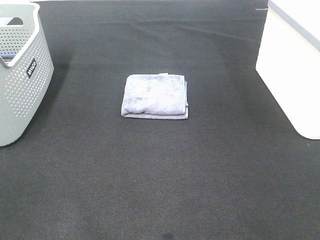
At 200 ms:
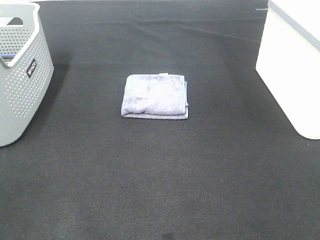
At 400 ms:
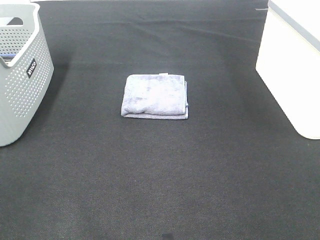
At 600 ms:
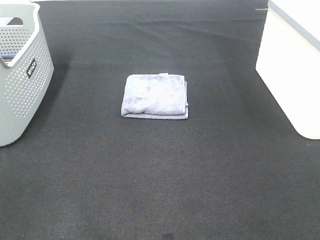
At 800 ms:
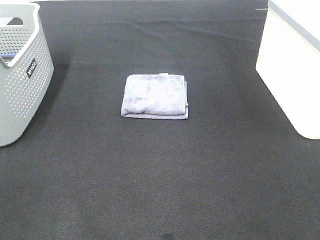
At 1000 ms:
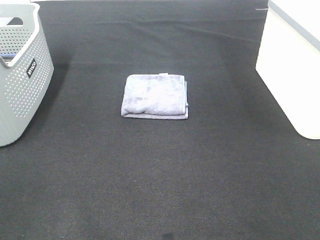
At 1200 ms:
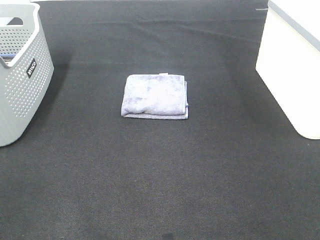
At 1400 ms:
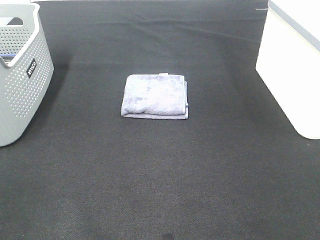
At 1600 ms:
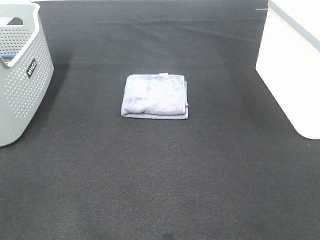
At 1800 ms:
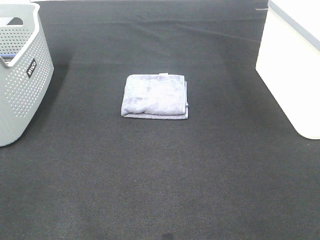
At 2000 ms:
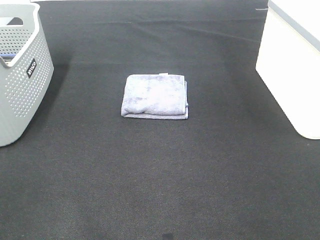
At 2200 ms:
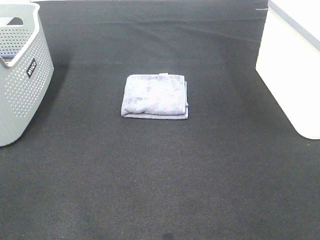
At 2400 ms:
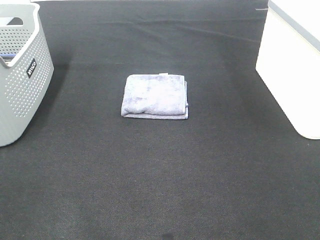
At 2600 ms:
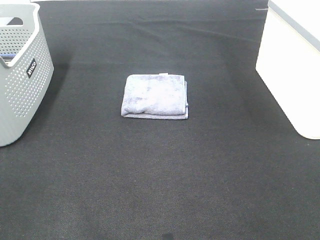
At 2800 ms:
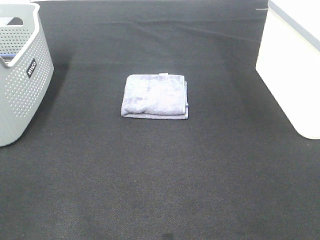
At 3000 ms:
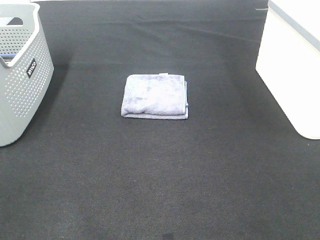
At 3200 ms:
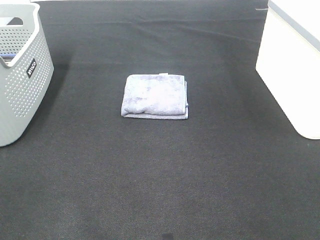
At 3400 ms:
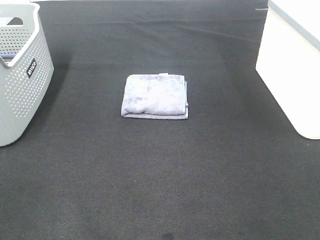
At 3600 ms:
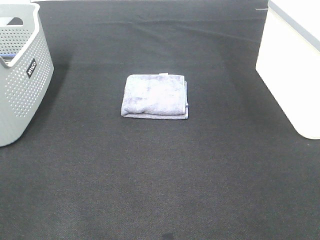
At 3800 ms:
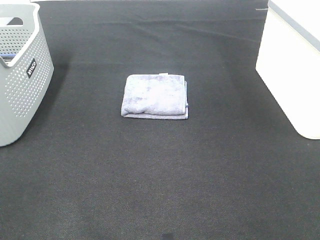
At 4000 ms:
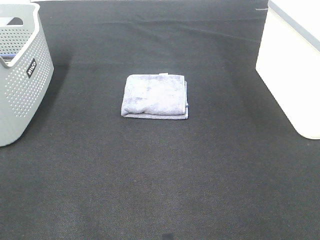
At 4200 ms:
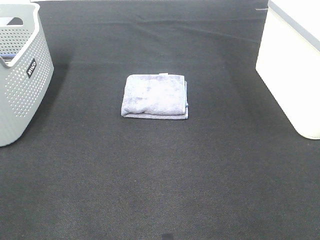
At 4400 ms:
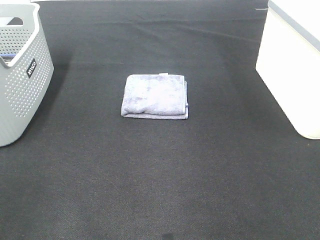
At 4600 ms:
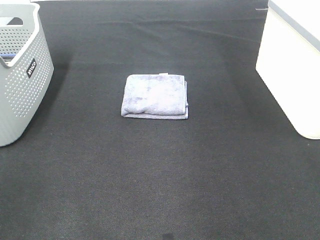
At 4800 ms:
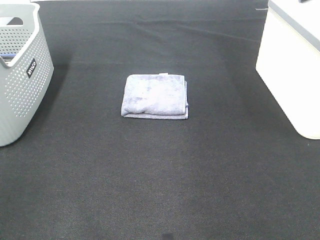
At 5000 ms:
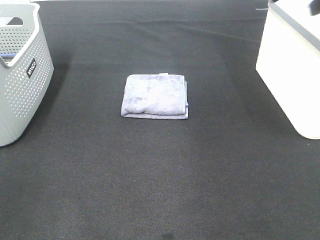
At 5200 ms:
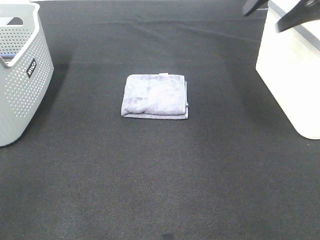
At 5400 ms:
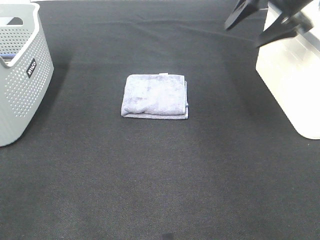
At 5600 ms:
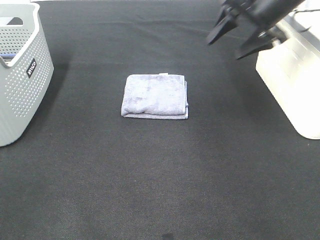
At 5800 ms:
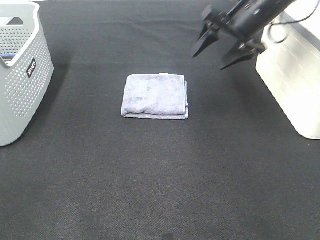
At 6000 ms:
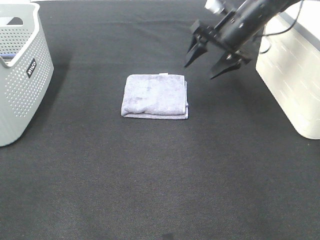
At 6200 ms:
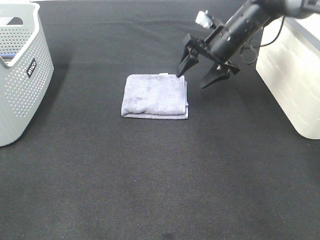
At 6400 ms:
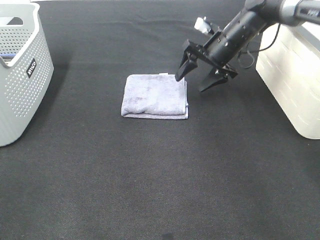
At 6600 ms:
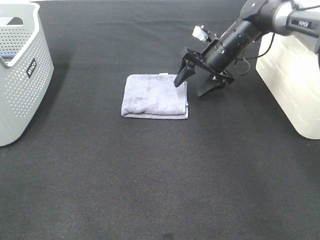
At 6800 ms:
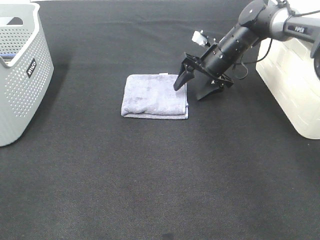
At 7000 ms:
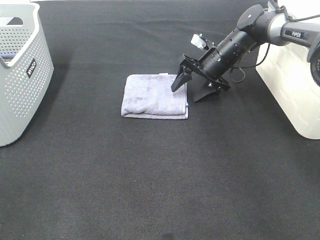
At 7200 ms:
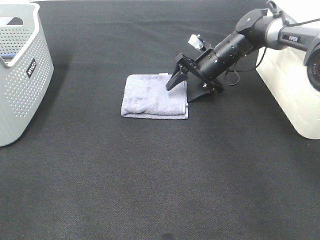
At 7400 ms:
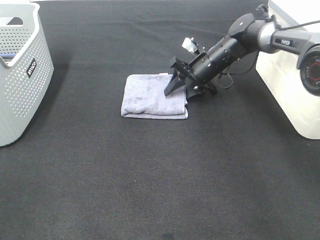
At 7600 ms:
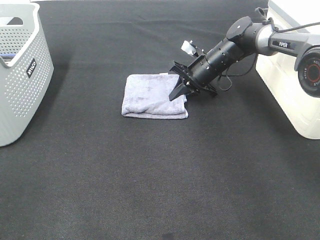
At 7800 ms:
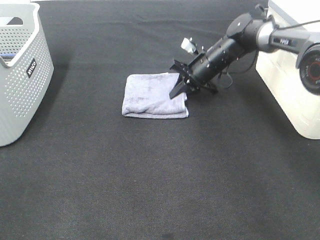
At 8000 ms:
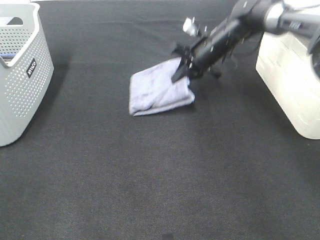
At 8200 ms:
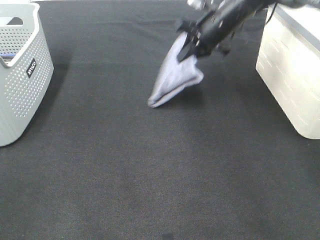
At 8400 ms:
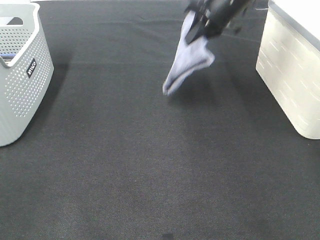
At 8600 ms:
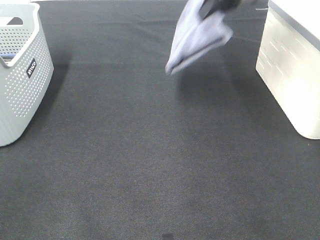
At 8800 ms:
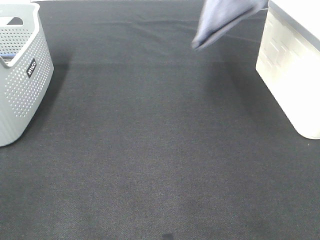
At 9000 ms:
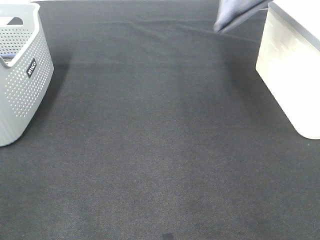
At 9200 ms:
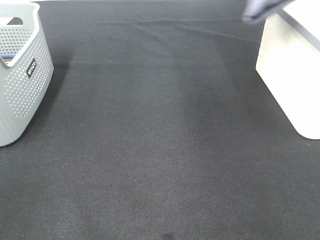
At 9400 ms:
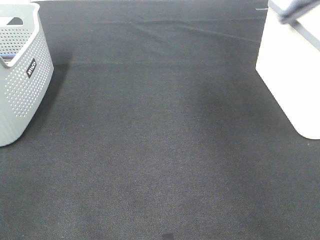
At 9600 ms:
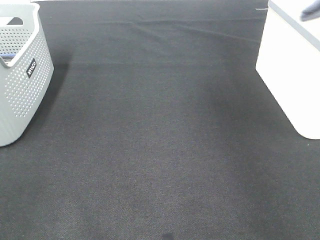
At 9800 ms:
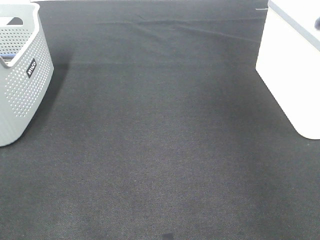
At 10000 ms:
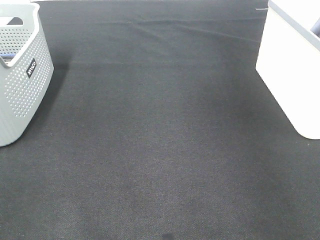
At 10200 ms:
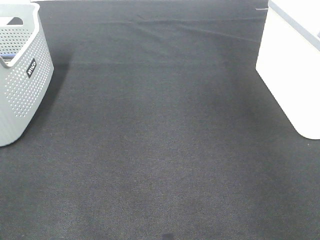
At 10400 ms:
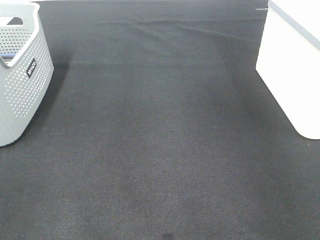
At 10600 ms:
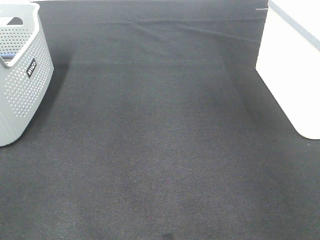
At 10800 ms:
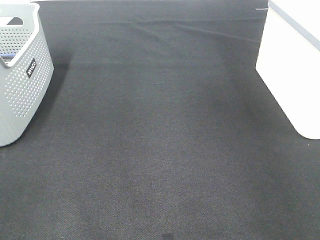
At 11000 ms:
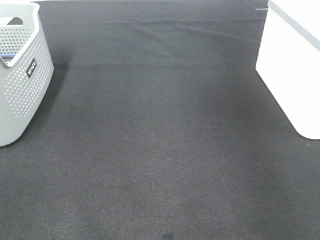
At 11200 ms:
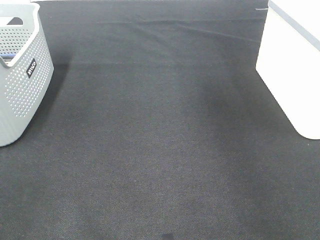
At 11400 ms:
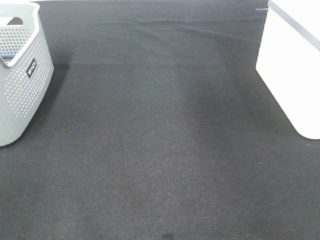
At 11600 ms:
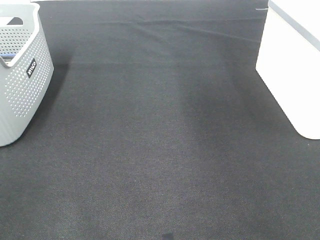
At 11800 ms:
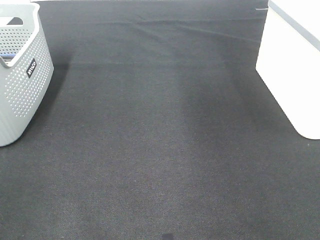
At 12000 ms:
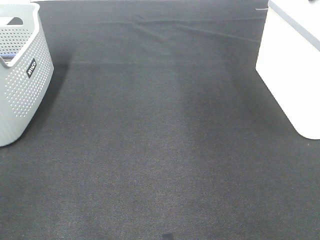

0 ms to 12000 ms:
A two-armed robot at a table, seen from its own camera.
Step, 0 ms to 7600 ms: Right hand: grab the folded grey towel.
Step, 7800 ms to 10600 ms: Right hand: place the grey towel in right basket.
0 ms to 3000 ms: Both grippers stay put.
4400 ms to 6000 ms: The right gripper travels forward and downward by some 35 cm.
6000 ms to 7600 ms: The right gripper shifts roughly 10 cm downward, and closes.
7600 ms to 9000 ms: The right gripper shifts approximately 35 cm upward.
9000 ms to 10400 ms: The right gripper travels to the right and downward by some 25 cm, and opens up.

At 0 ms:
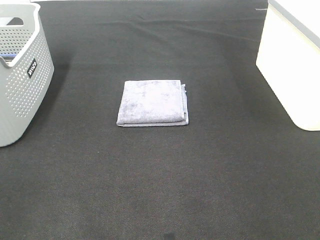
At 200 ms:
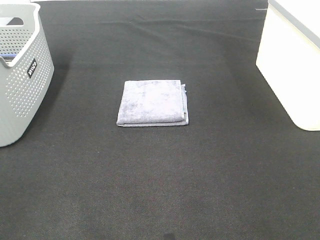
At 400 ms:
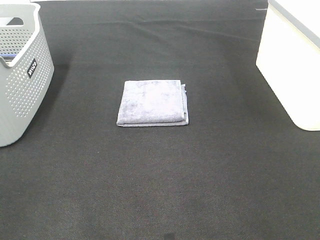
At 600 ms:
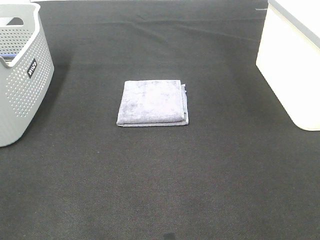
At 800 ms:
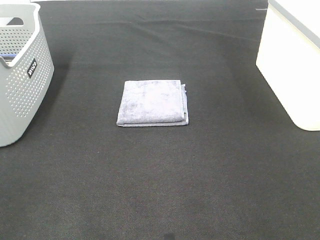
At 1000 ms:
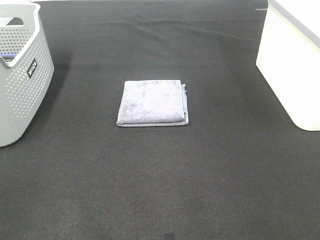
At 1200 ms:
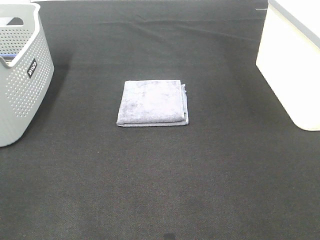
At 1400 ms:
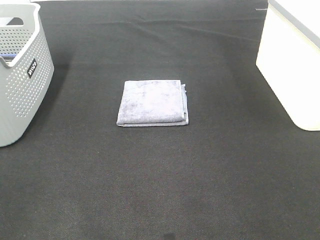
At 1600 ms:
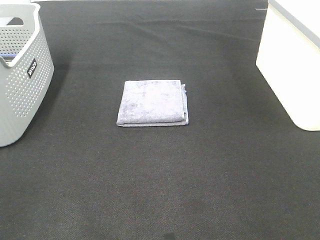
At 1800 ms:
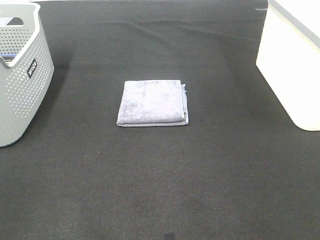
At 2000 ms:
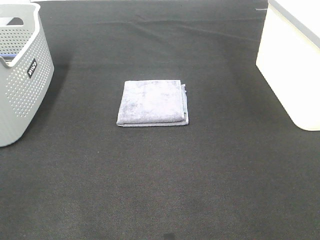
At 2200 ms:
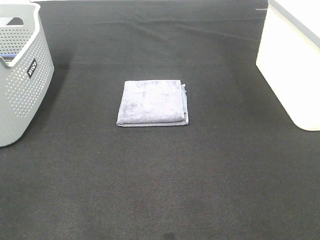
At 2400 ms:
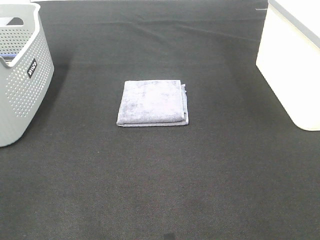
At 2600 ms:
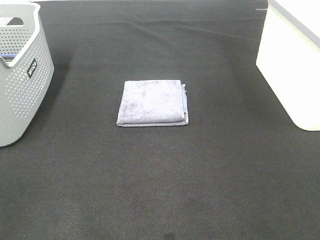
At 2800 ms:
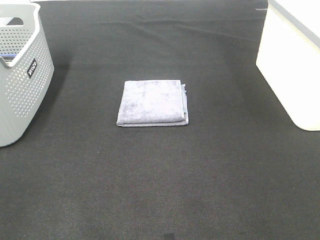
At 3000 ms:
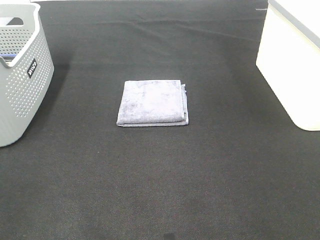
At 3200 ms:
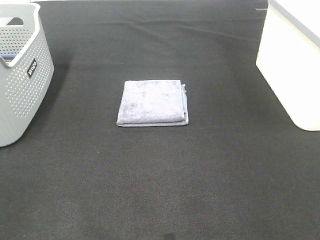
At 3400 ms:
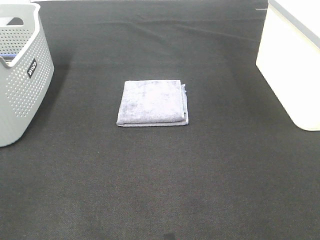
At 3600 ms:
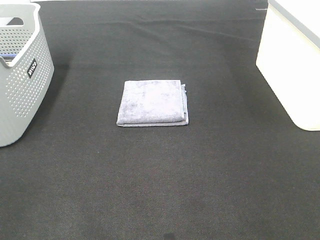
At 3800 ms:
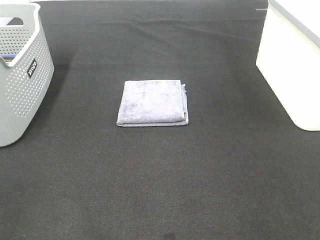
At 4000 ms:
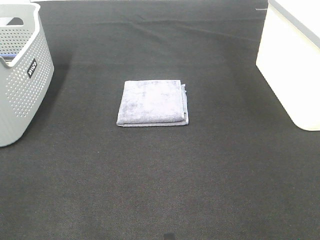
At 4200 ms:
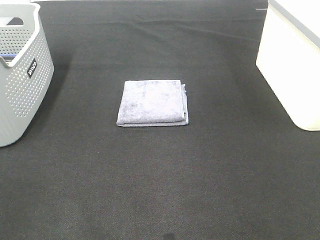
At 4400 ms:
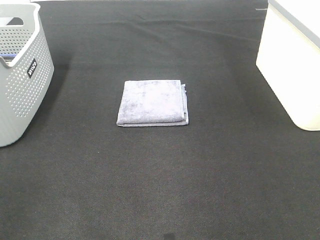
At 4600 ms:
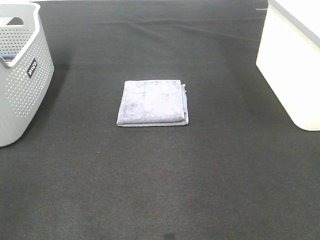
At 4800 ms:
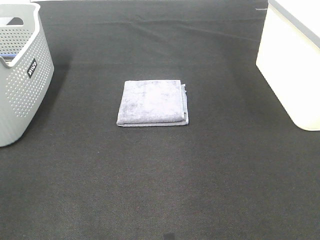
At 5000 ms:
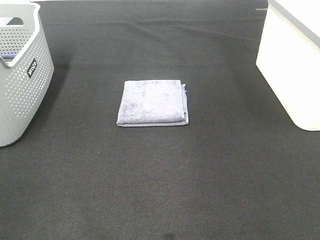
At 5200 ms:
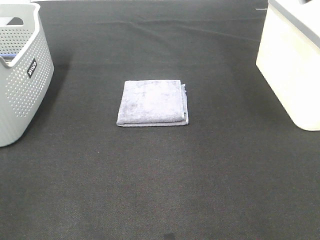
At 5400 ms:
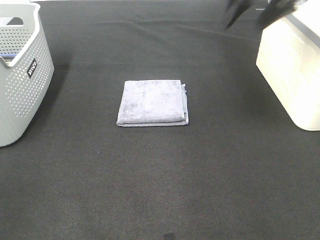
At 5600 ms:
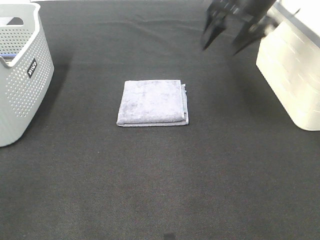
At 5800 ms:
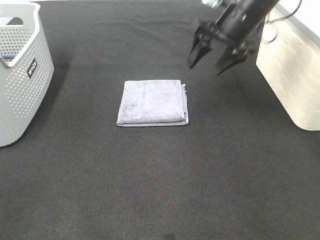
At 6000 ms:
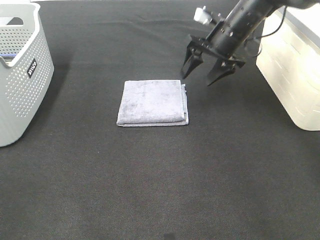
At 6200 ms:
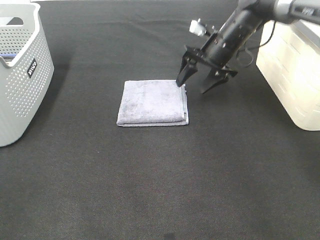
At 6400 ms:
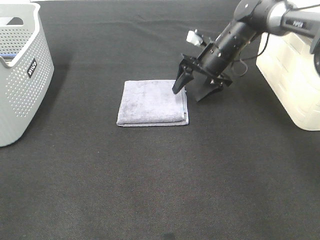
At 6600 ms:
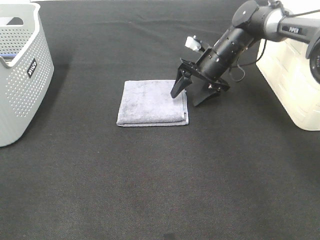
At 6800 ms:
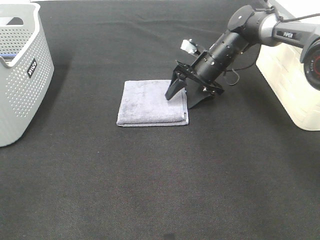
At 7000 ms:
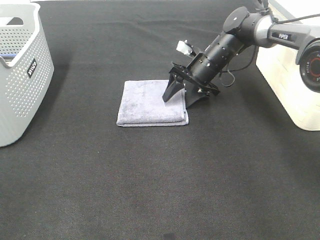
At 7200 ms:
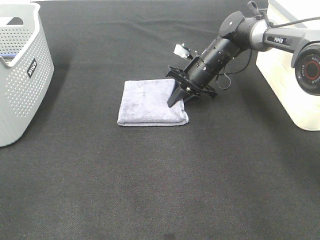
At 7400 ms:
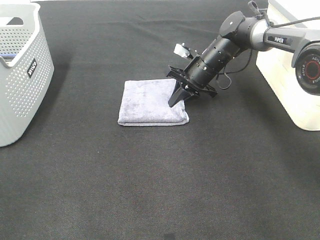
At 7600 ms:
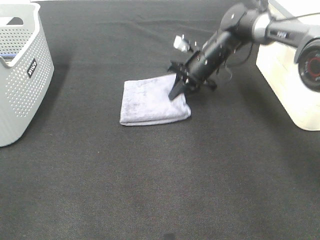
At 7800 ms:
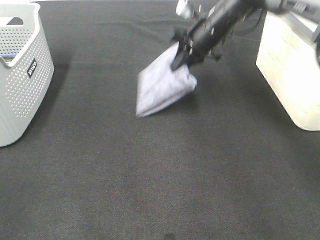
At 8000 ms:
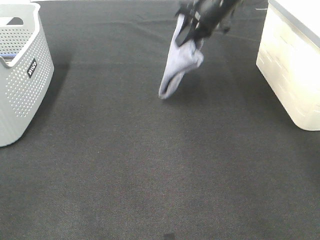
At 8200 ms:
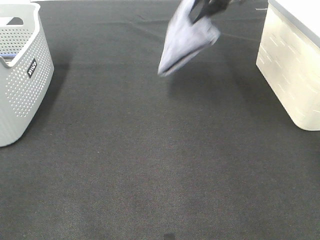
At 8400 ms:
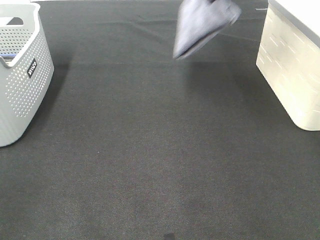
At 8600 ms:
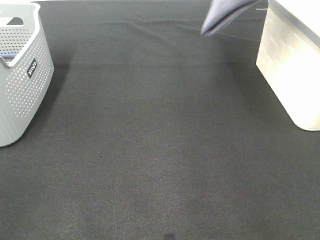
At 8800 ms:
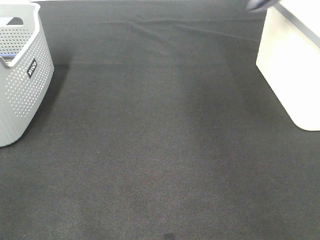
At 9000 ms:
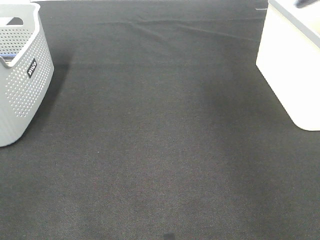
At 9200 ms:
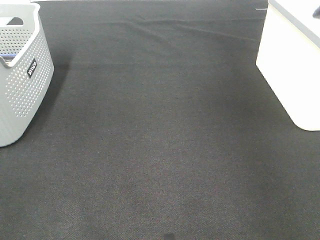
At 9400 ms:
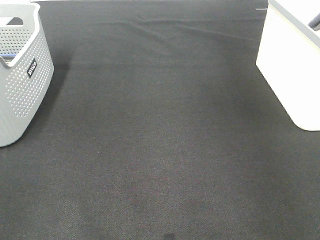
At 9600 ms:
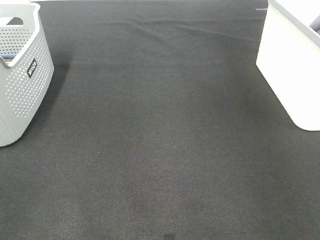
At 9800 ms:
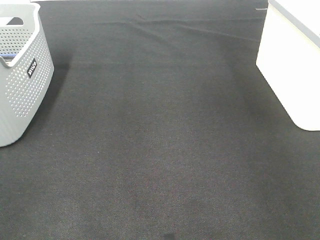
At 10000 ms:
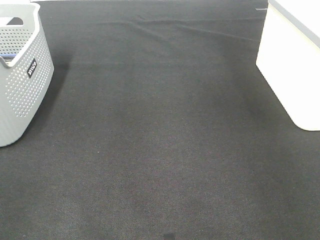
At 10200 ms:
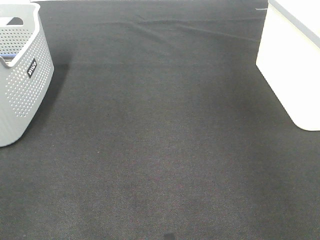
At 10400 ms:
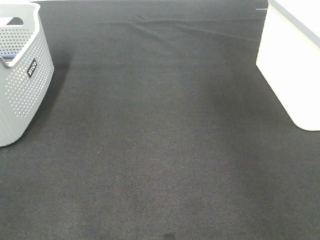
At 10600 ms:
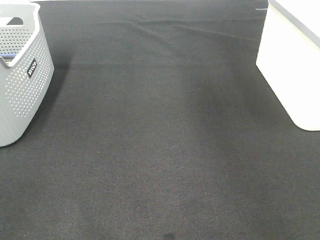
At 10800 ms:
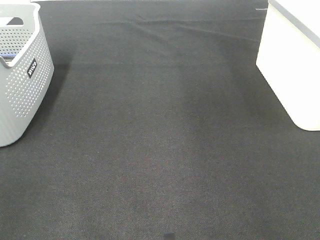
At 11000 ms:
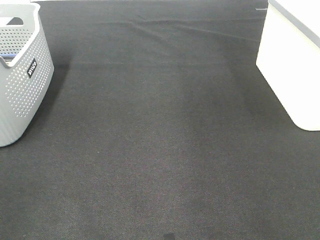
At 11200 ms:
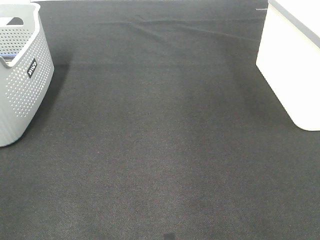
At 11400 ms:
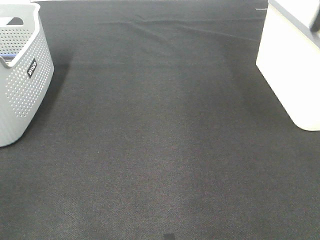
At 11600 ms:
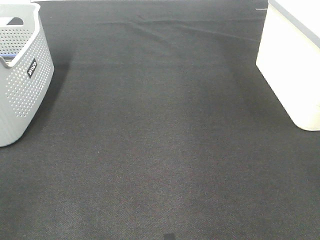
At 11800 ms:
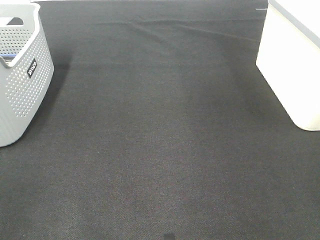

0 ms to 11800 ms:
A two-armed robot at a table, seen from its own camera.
Step, 0 ms to 7400 ms: Right hand: grab the folded grey towel.
Step, 7600 ms to 10000 ms: Right hand: place the grey towel in right basket.
0 ms to 3000 ms: Neither gripper changes place.
4400 ms to 6000 ms: The right gripper moves forward, downward and to the left, some 40 cm.
6000 ms to 7400 ms: The right gripper shifts approximately 10 cm downward, and closes.
7400 ms to 8800 ms: The right gripper goes some 40 cm upward and to the right.
8800 ms to 10400 ms: The right gripper goes some 5 cm downward, and opens.
